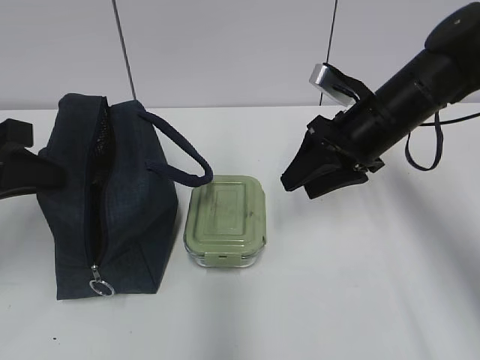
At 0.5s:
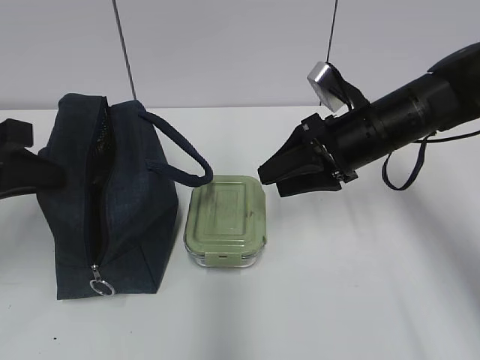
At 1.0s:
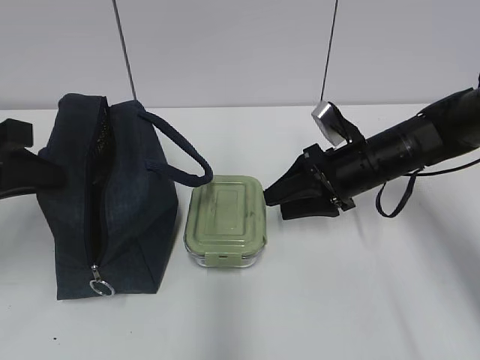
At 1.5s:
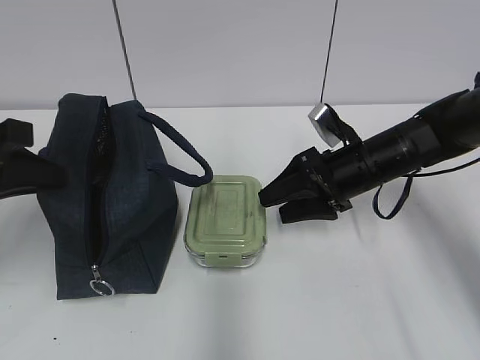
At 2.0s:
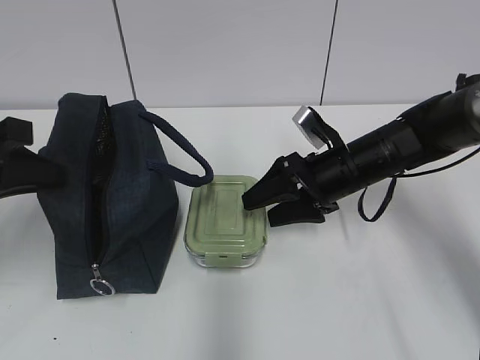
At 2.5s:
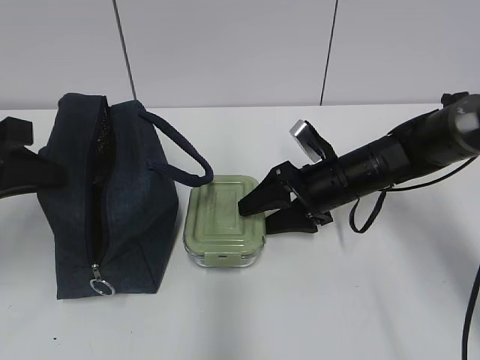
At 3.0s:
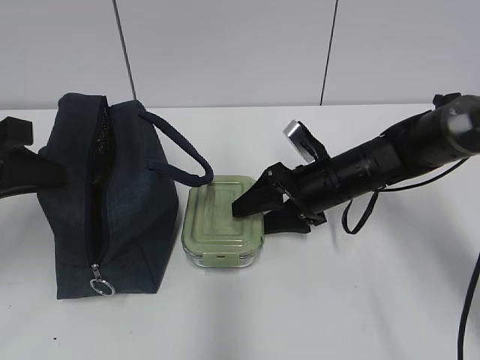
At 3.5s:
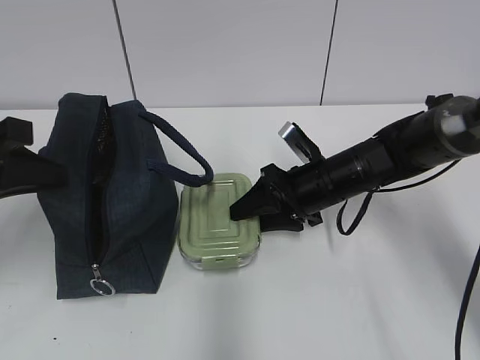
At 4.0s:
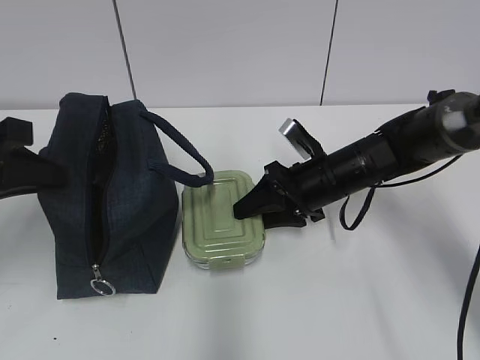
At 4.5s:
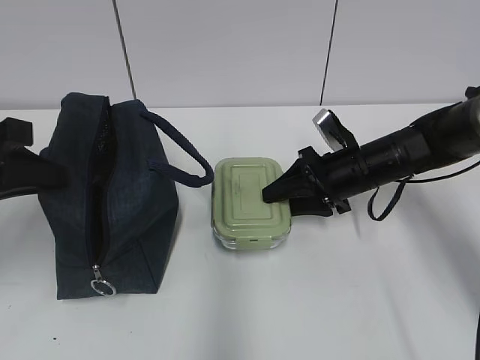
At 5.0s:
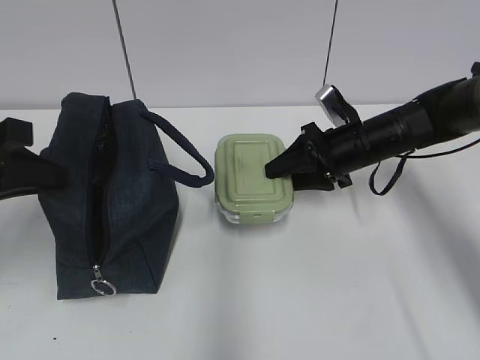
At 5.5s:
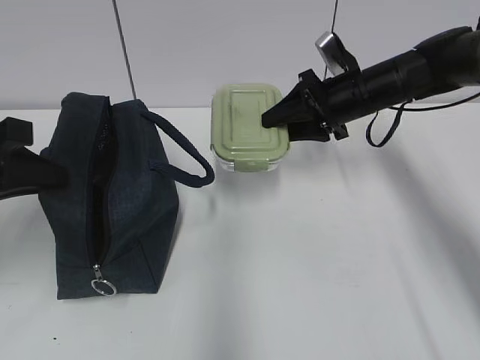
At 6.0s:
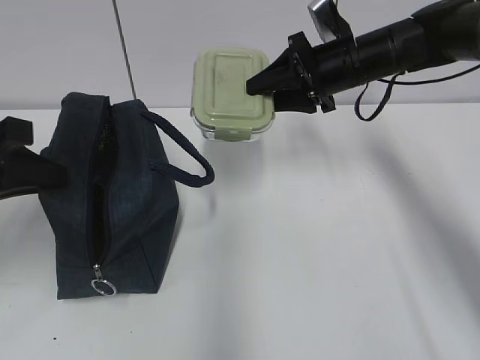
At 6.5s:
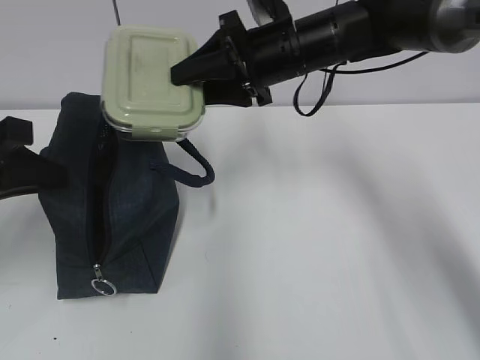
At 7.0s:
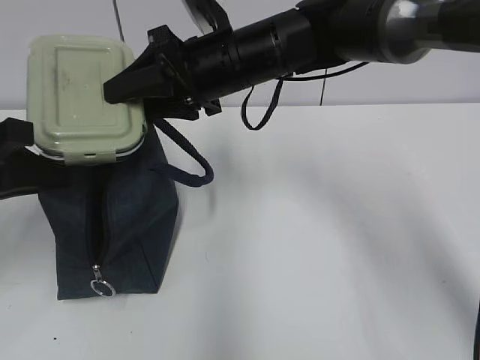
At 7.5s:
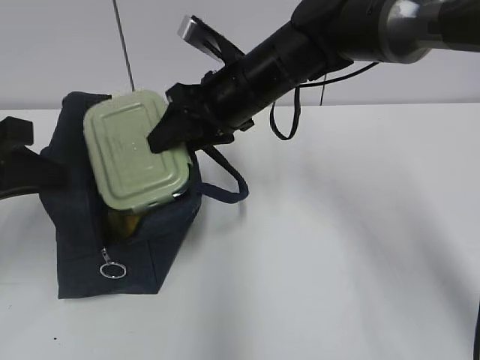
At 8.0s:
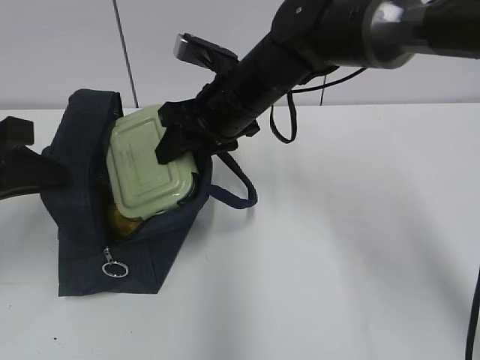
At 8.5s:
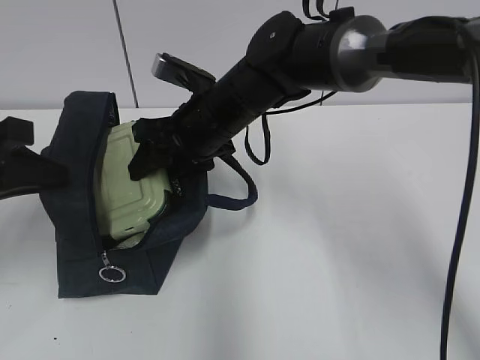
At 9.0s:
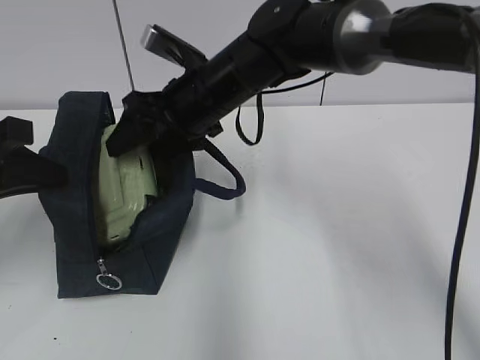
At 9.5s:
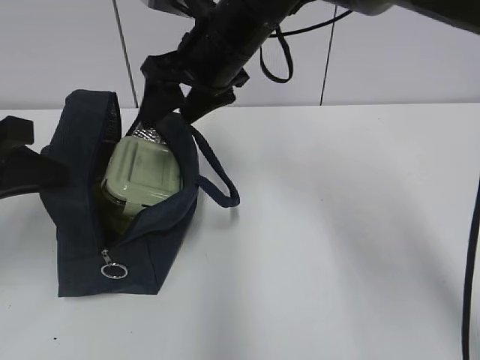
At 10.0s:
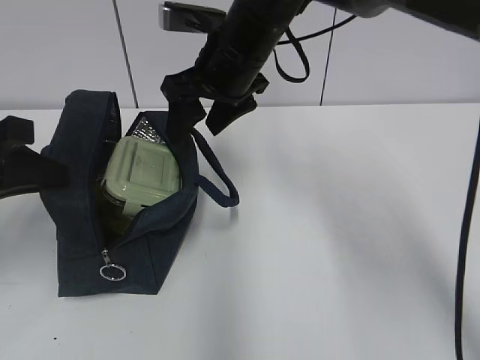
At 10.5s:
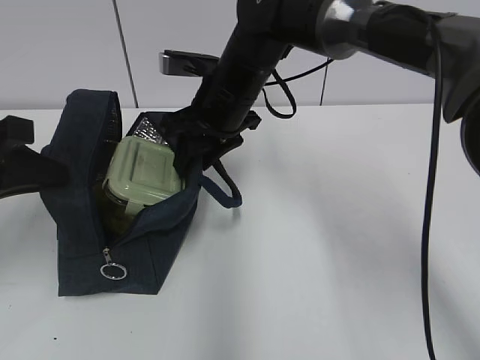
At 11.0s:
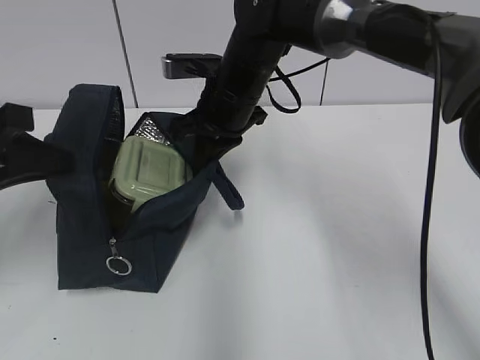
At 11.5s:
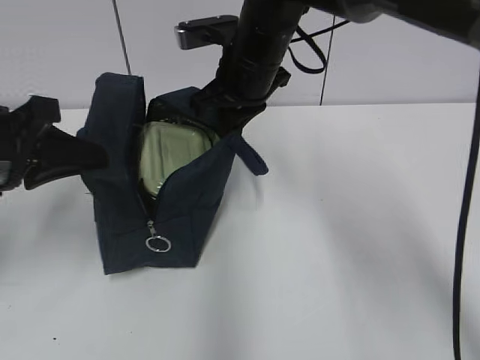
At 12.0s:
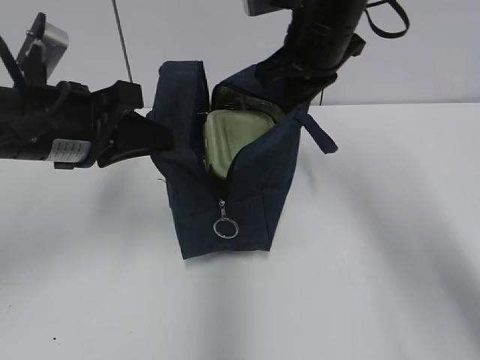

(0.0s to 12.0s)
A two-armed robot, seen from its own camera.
Step, 0.0s - 3.5s: Grab the lunch box with your right hand.
Step, 4.0s - 9.0s: Place it into the bag with your right hand.
Step, 10.0s - 10.5s: Grab the lunch bag with your right hand.
Step, 11.0s - 11.5s: Move the lunch bag to the left.
0.0s - 2.0s: The right gripper travels downward by about 5 cm.
2.0s - 4.0s: The grippers make only small movements.
4.0s - 6.0s: The right gripper goes approximately 15 cm upward and forward.
6.0s - 8.0s: The right gripper travels to the left by approximately 15 cm.
8.0s - 10.0s: The grippers stay close to where they were, moving slightly.
10.0s - 12.0s: Both grippers move to the right, roughly 10 cm. The right gripper closes its fingers.

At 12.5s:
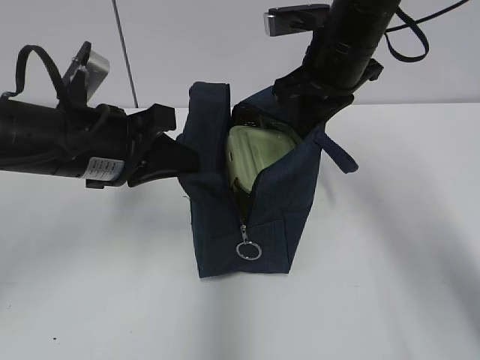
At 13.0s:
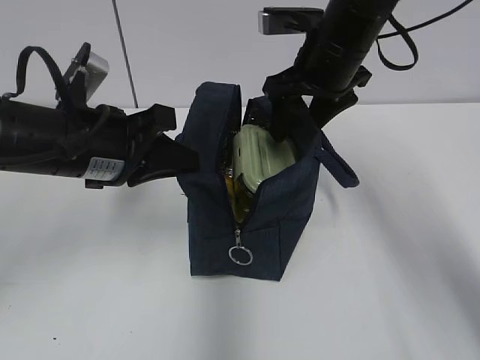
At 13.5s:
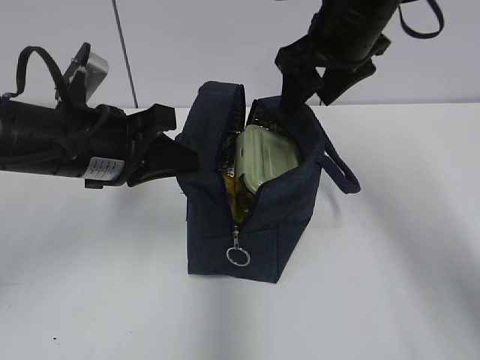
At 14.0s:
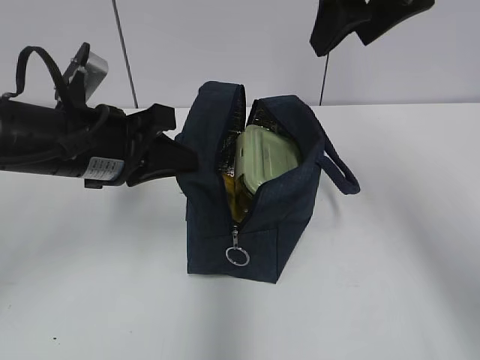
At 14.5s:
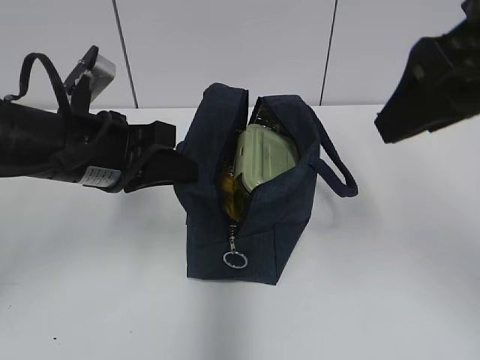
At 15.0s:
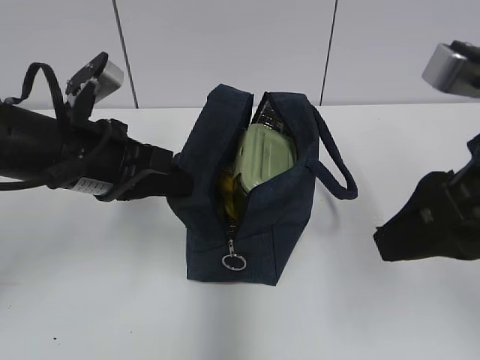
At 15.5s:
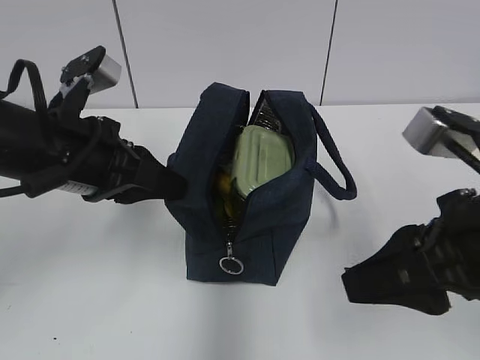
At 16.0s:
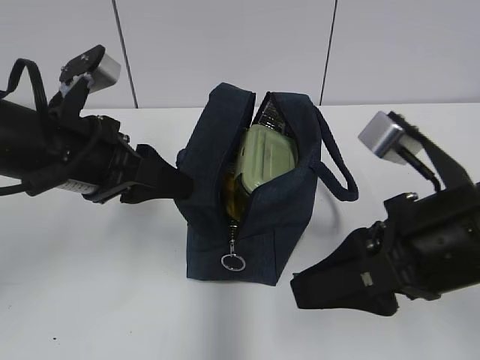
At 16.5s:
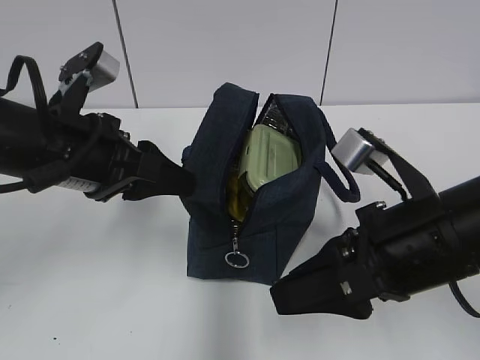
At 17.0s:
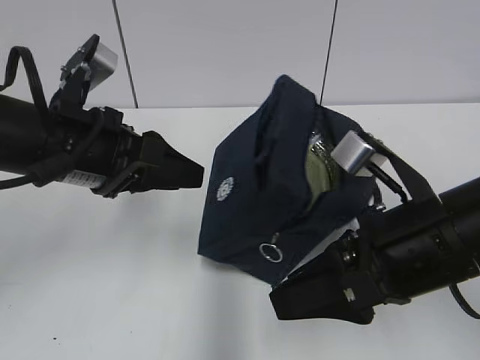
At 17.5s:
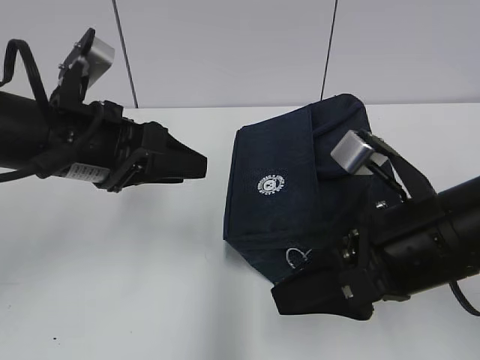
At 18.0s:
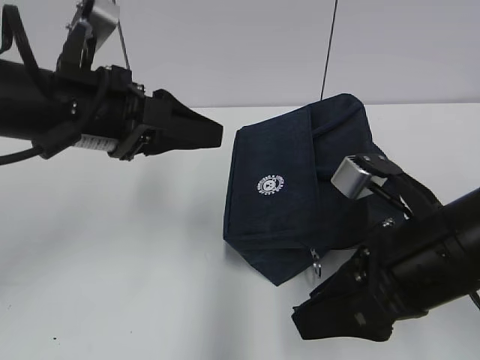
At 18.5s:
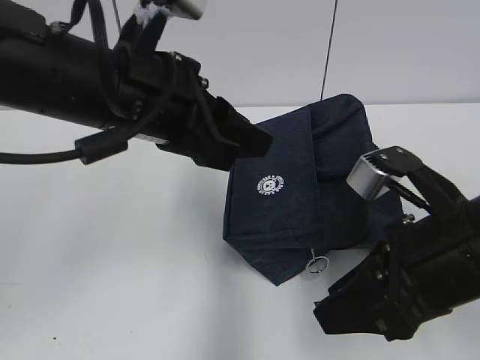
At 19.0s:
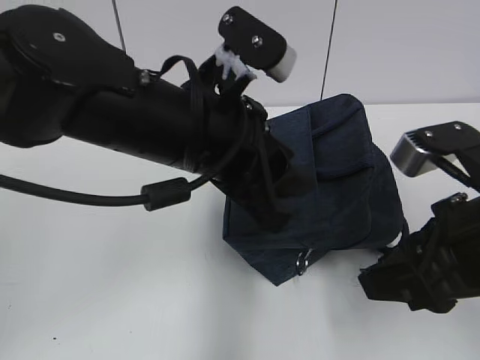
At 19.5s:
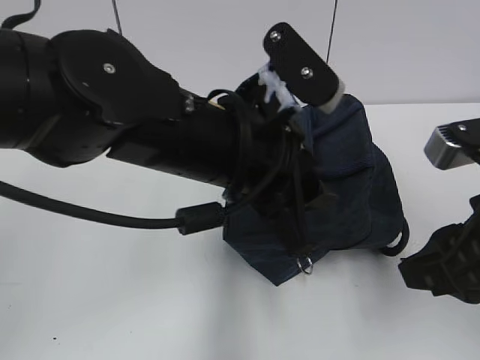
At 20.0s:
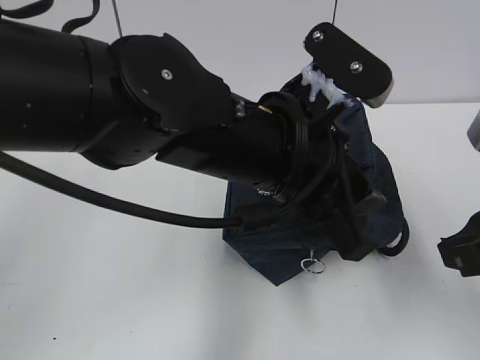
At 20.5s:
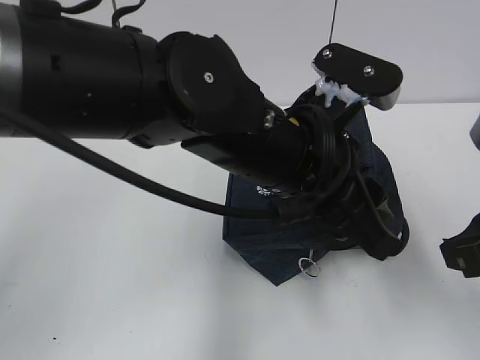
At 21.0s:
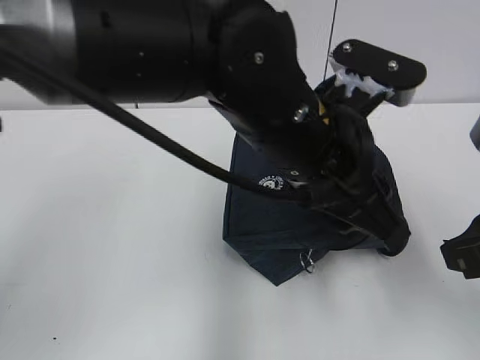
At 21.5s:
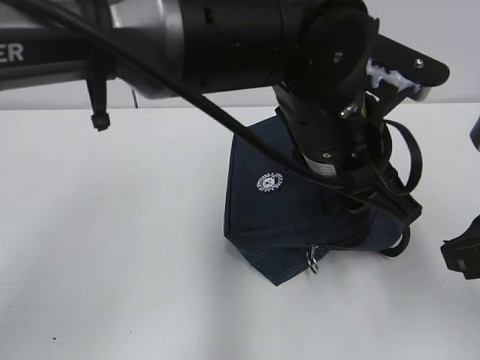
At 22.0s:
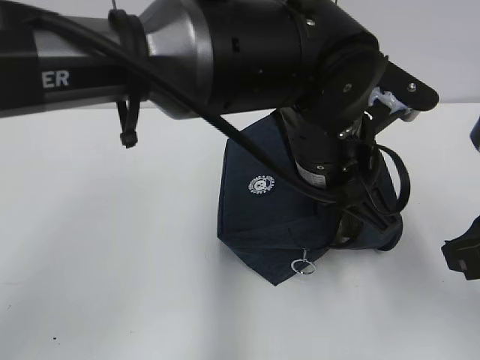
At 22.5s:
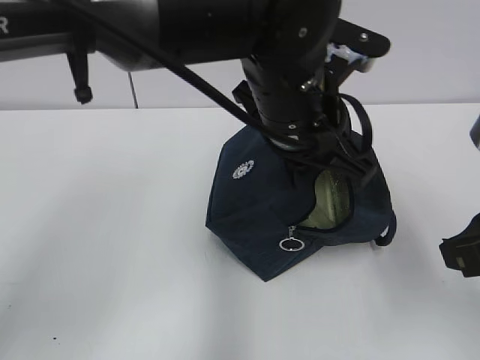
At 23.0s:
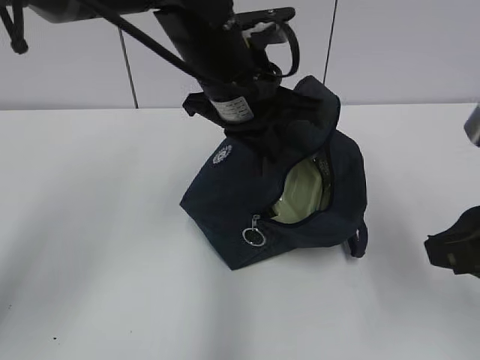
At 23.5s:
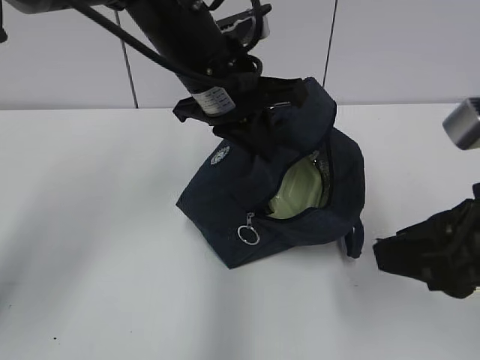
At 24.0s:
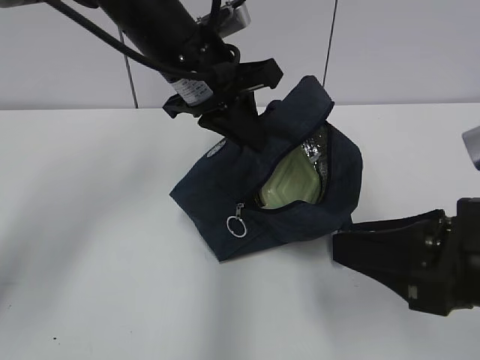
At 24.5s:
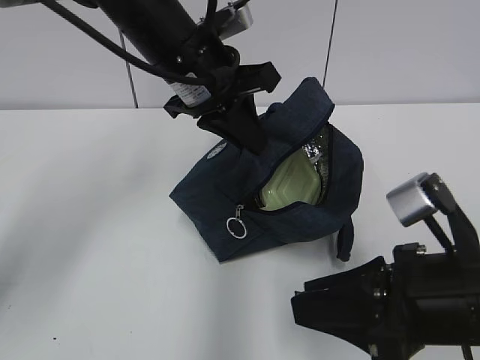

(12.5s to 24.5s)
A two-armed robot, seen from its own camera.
12.5s - 14.5s: The right gripper travels backward and upward by about 20 cm, and opens its fingers.
14.5s - 16.5s: The right gripper heads downward, covering some 15 cm. Meanwhile the left gripper opens up.
16.5s - 18.5s: The left gripper is displaced to the right and upward by about 10 cm.
18.5s - 20.5s: The left gripper travels to the right by approximately 10 cm; the right gripper goes roughly 5 cm to the right.
20.5s - 22.5s: The left gripper goes roughly 5 cm forward, and closes its fingers.
22.5s - 24.5s: The left gripper travels to the left and forward by about 10 cm, while the right gripper moves downward and to the left, roughly 10 cm.

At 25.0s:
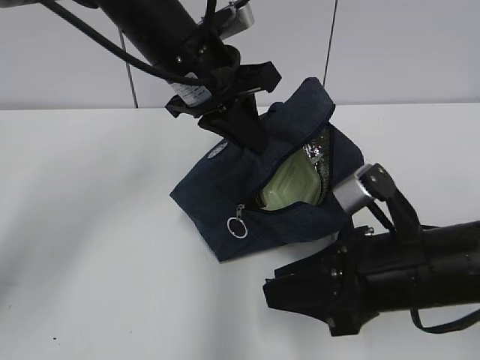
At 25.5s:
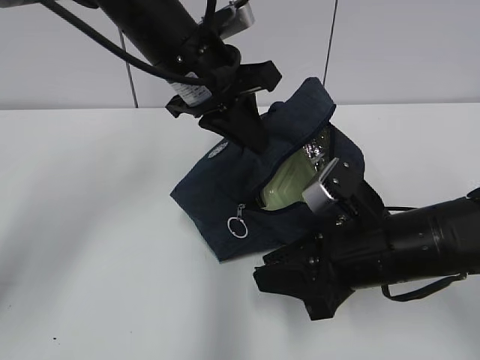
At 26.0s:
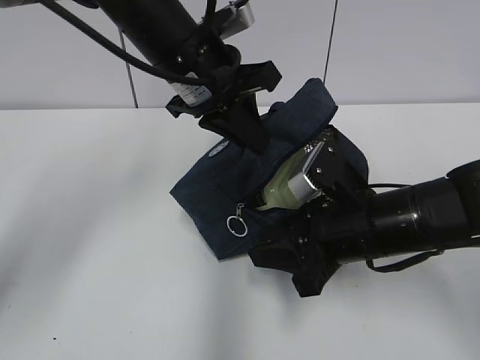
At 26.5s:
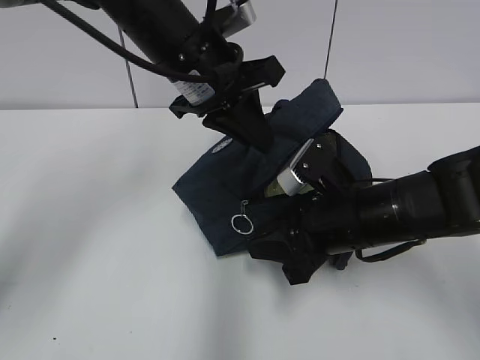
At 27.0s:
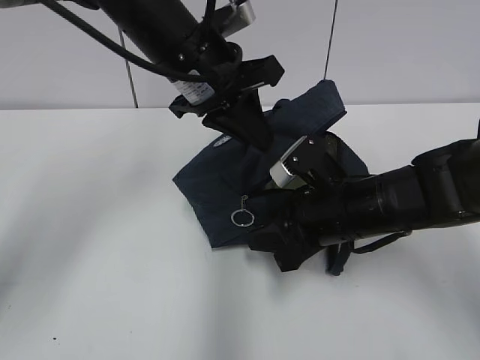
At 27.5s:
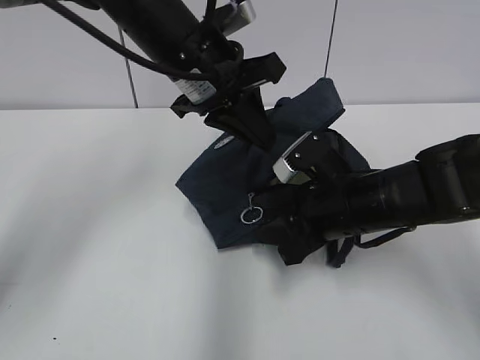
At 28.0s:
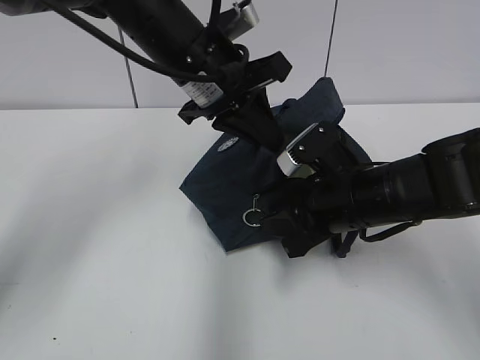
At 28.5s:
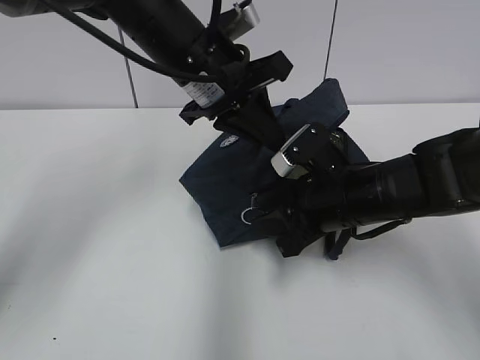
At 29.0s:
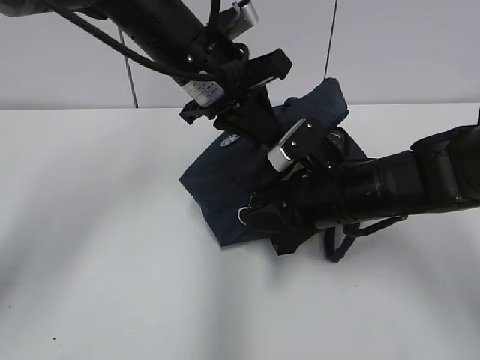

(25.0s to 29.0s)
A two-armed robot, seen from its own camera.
25.0s - 27.0s: The right gripper goes about 10 cm forward.
27.0s - 29.0s: The grippers move only a little.
